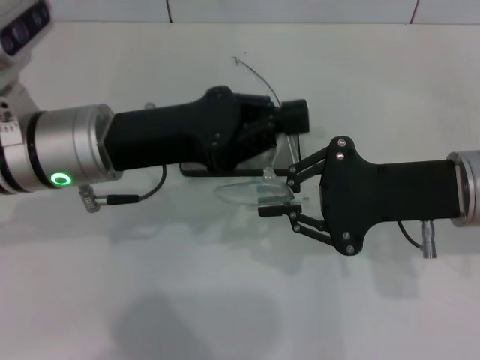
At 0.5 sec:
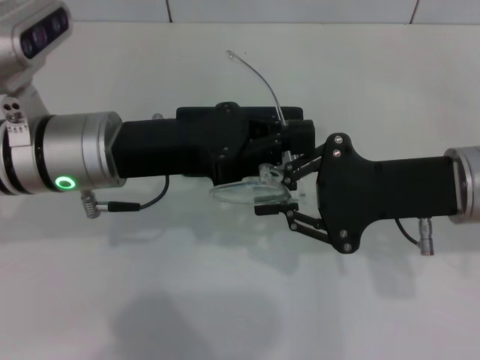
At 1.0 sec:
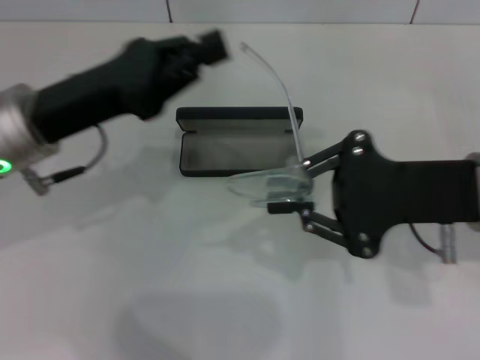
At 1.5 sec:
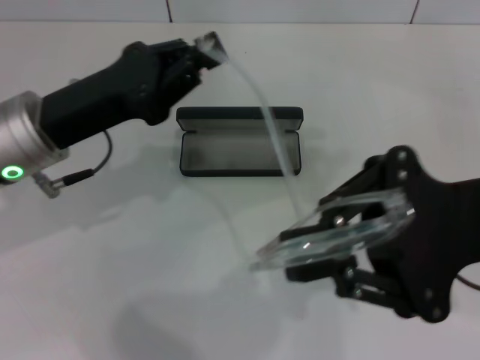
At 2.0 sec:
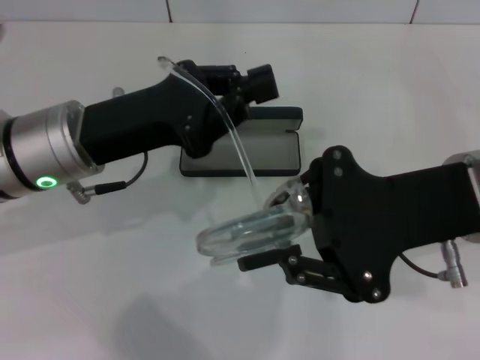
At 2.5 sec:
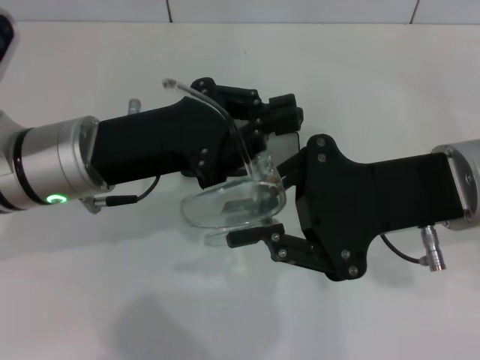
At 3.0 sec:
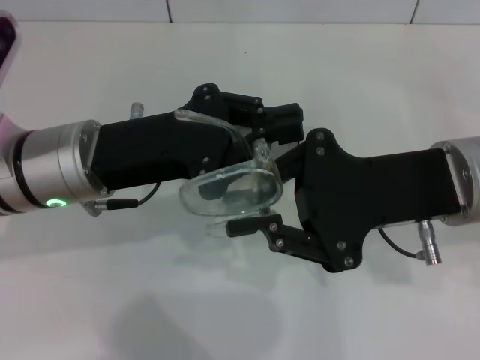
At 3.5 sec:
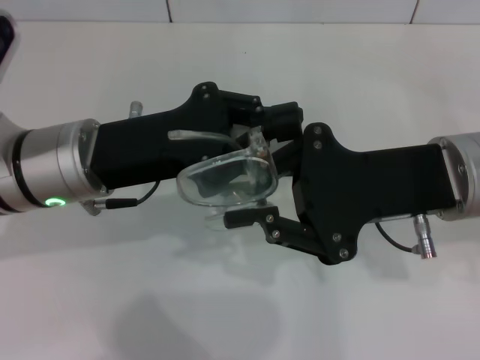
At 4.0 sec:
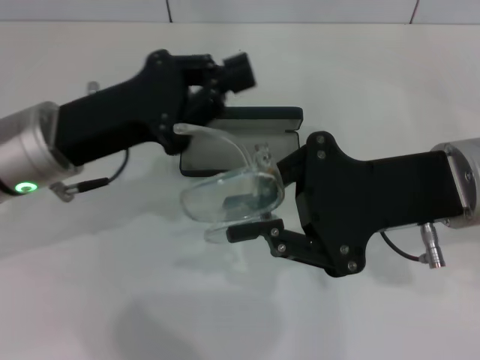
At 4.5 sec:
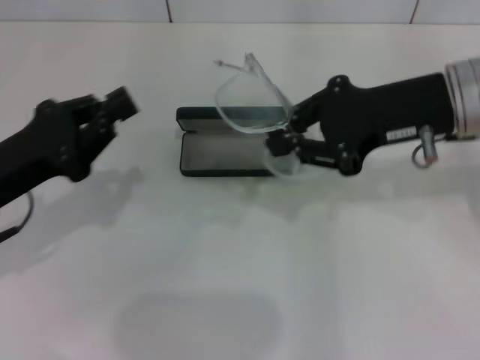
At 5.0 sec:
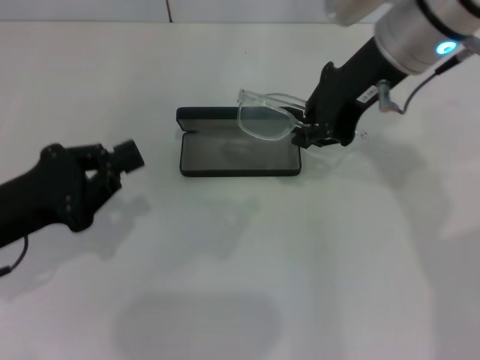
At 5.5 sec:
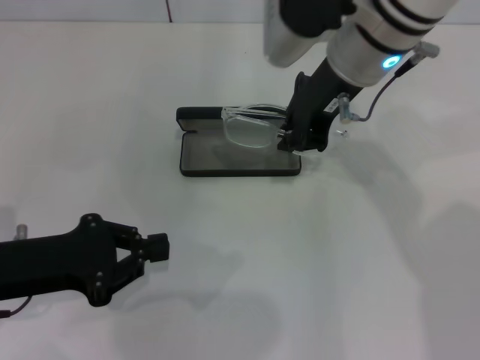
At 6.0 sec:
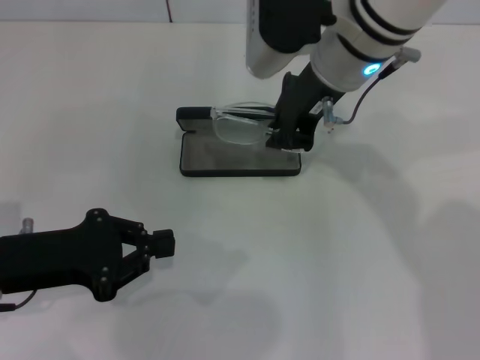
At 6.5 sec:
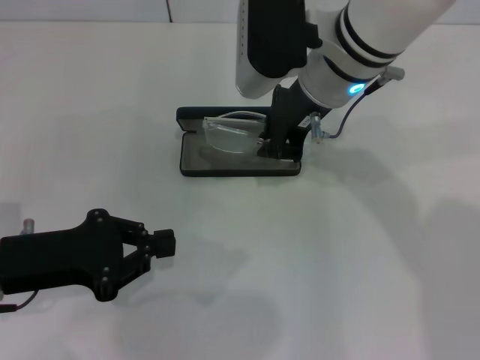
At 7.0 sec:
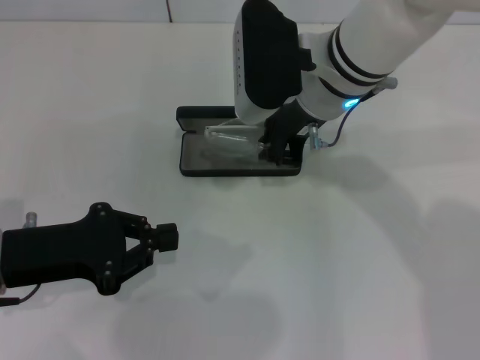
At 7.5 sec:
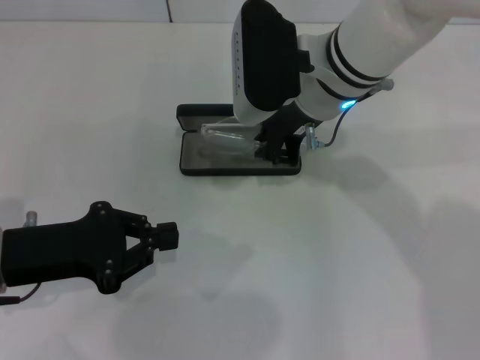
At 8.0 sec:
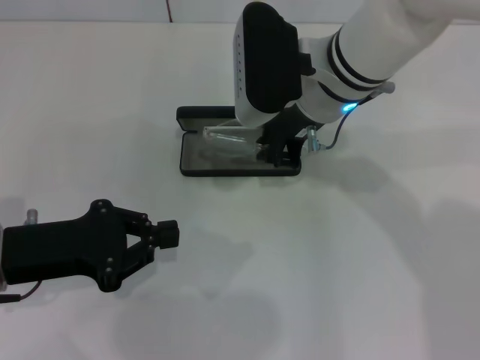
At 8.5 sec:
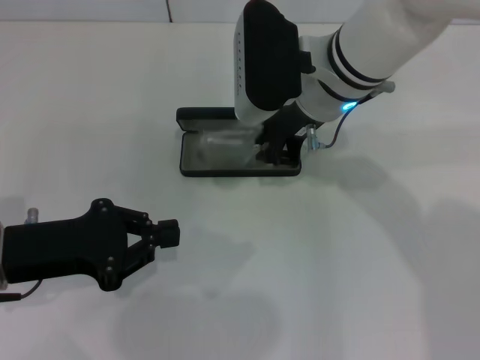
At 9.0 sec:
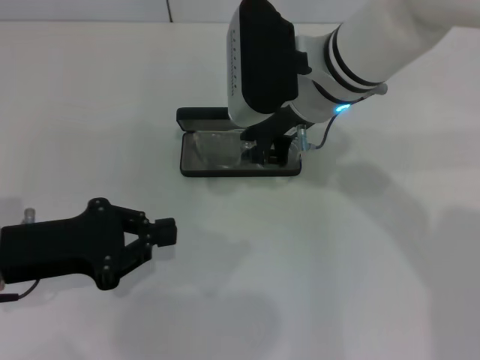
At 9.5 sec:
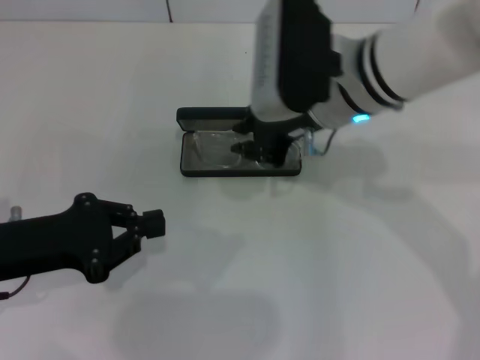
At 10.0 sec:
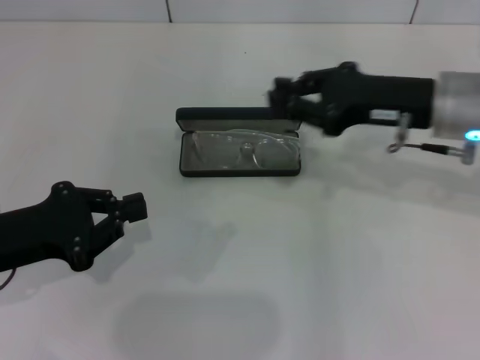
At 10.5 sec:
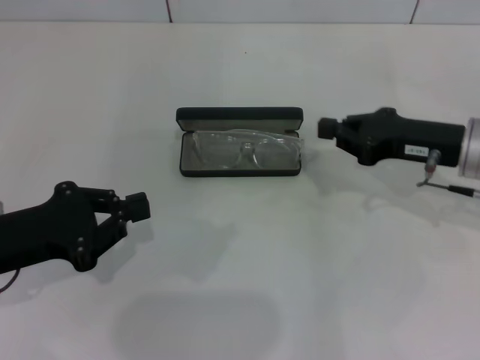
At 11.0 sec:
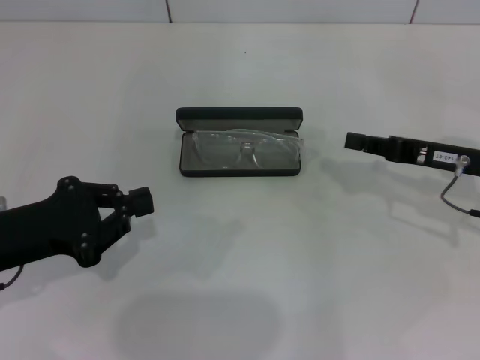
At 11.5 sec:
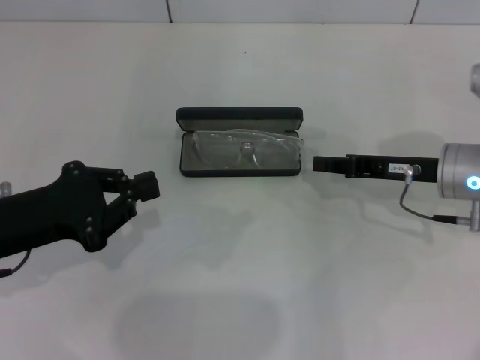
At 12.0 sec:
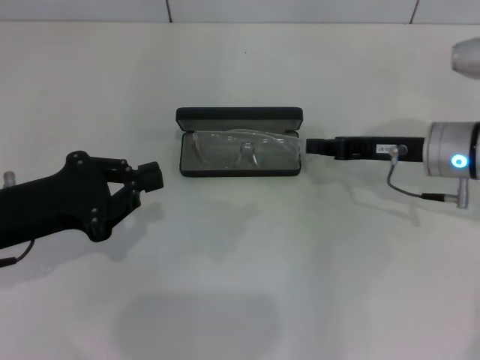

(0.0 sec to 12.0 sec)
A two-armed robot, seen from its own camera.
Step, 0.0 sec - 3.0 sec: Fold the frame with your left hand.
Step, 3.5 sec - 8.5 sec: Put the glasses into the case with your right hand.
4.0 sec - 6.0 sec: The right gripper moves forward and to the left, about 15 cm; the left gripper heads to the left, backward and downward, covering roughly 10 cm.
6.0 sec - 8.0 sec: The grippers stay close to where they were, moving slightly.
8.0 sec - 10.0 sec: The right gripper goes roughly 15 cm to the right.
10.0 sec - 12.0 sec: The right gripper heads downward, covering approximately 5 cm.

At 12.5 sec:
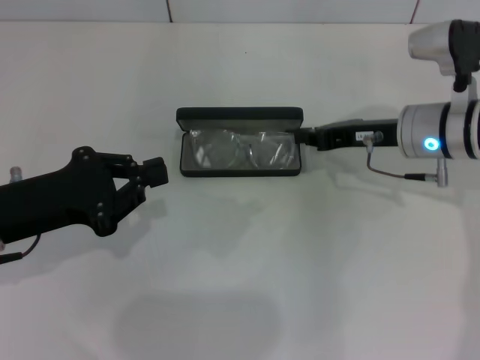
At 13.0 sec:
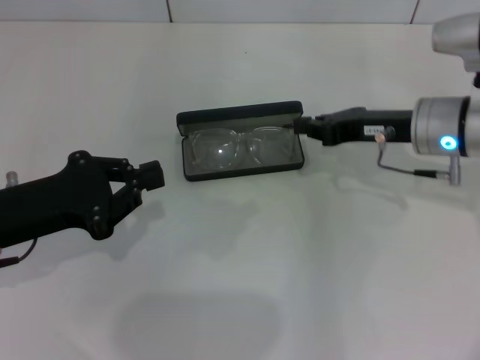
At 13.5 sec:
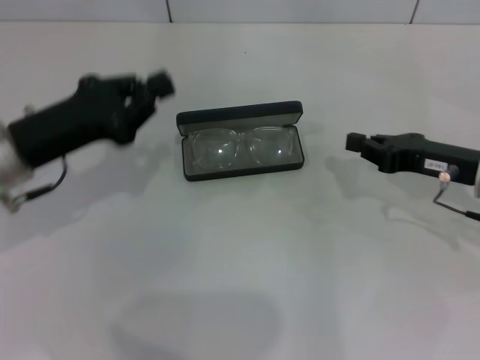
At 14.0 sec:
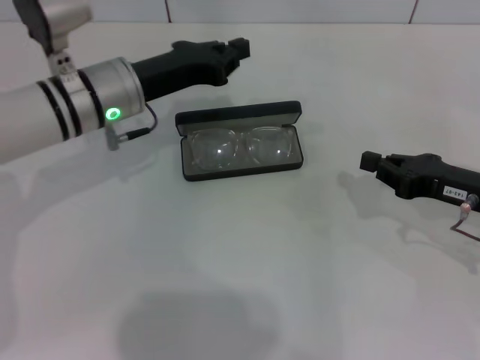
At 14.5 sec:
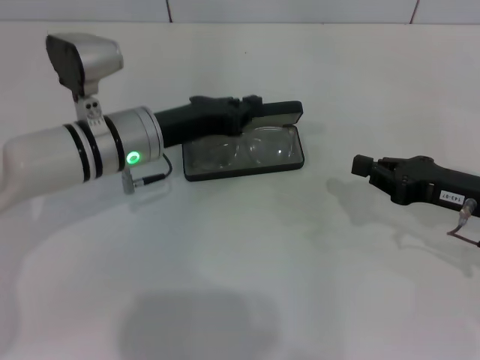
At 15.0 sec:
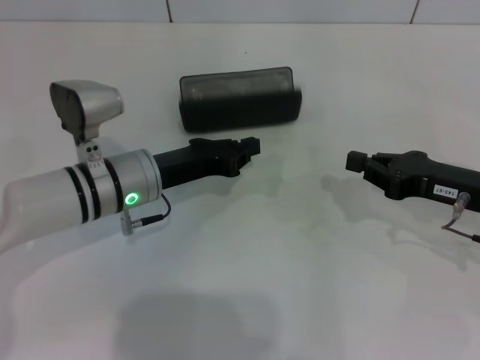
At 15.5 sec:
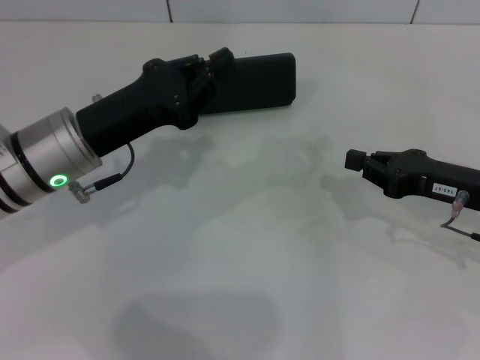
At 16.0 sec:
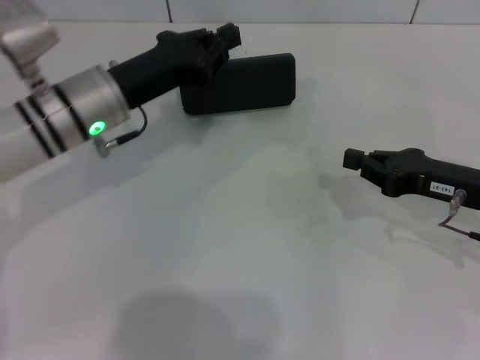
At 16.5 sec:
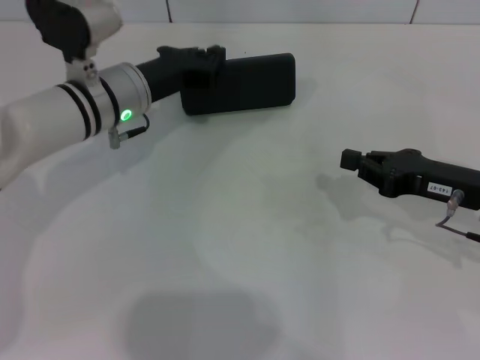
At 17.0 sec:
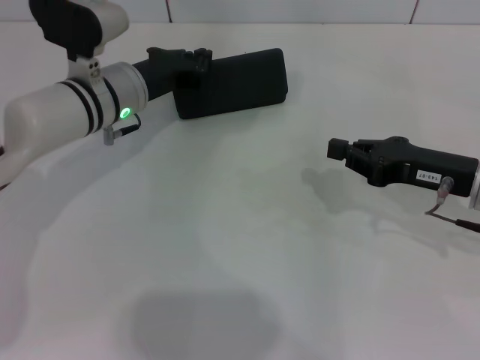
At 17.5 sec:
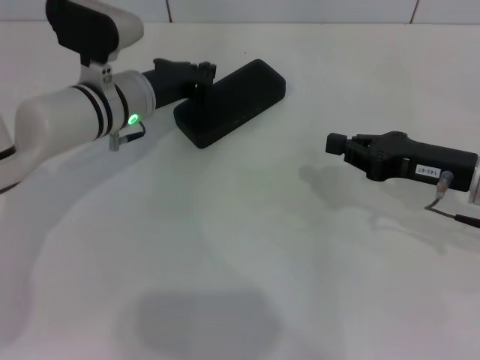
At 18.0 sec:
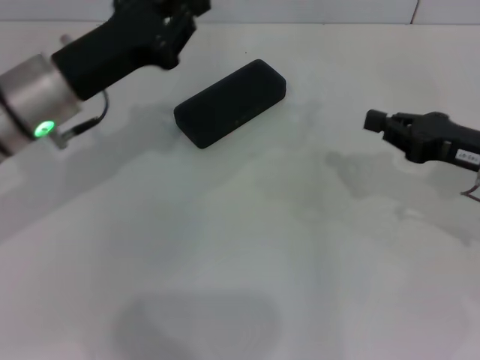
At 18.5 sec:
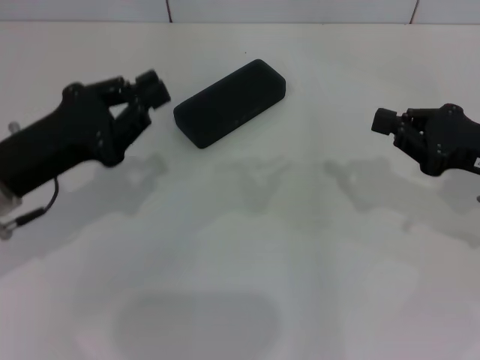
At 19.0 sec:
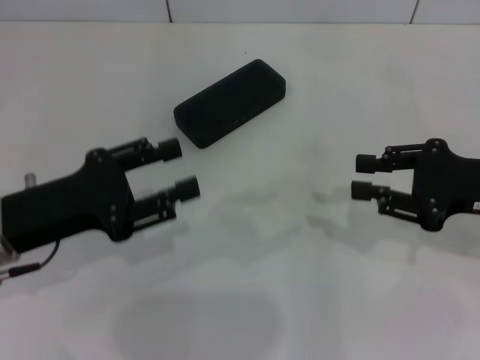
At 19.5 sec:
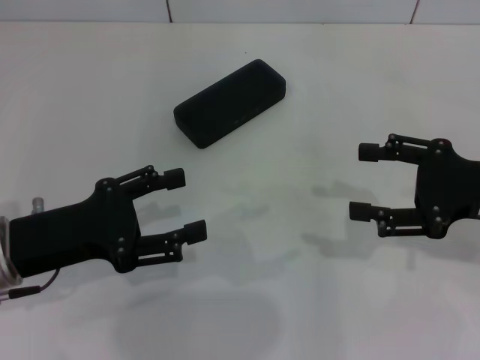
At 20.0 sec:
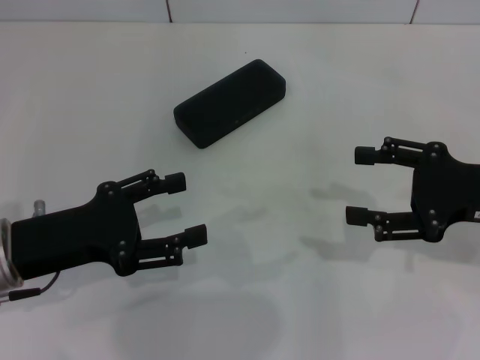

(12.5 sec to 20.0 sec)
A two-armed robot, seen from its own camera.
Step, 12.5 sec - 17.0 sec: Close the glasses case with your left hand.
12.5 sec - 14.5 sec: The right gripper goes about 10 cm backward and to the right; the left gripper shifts approximately 15 cm to the right and forward.
16.5 sec - 18.0 sec: The left gripper travels backward and upward by roughly 10 cm.
18.0 sec - 20.0 sec: The left gripper moves backward, approximately 10 cm, and opens its fingers; the right gripper opens up.
